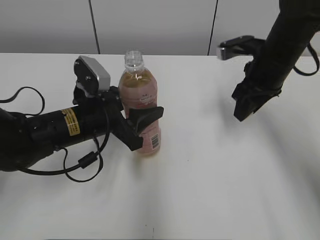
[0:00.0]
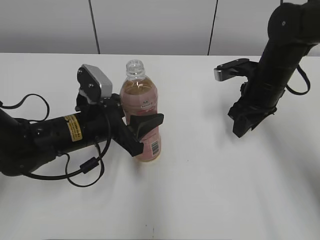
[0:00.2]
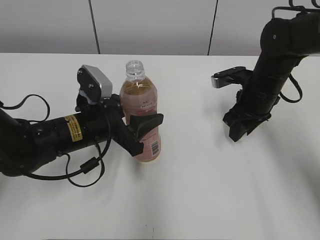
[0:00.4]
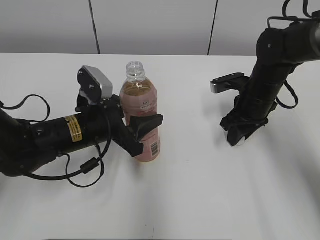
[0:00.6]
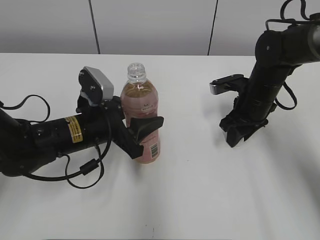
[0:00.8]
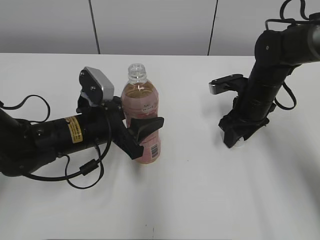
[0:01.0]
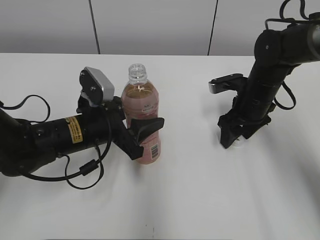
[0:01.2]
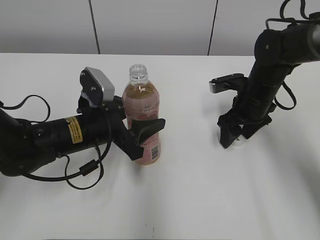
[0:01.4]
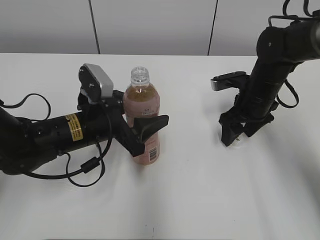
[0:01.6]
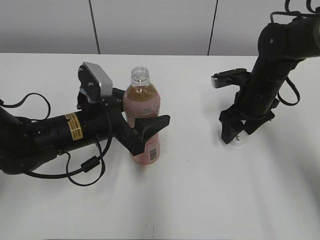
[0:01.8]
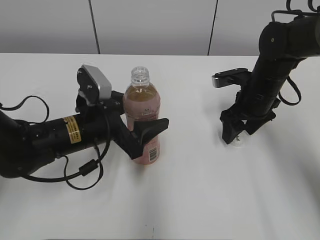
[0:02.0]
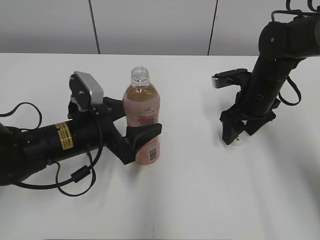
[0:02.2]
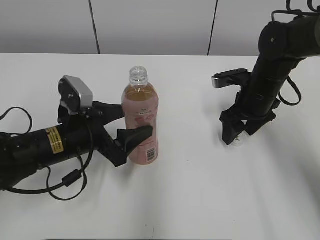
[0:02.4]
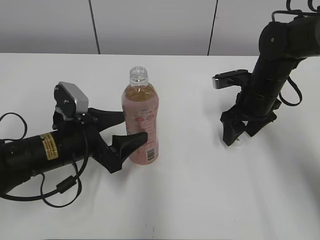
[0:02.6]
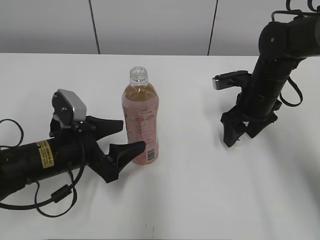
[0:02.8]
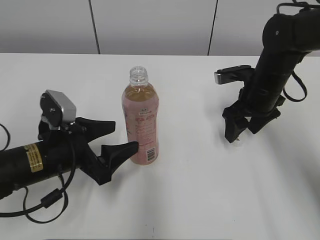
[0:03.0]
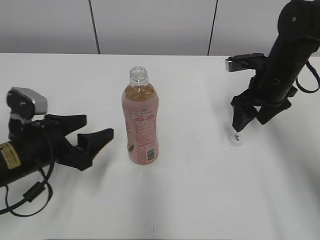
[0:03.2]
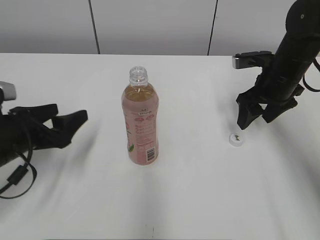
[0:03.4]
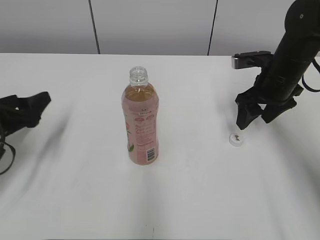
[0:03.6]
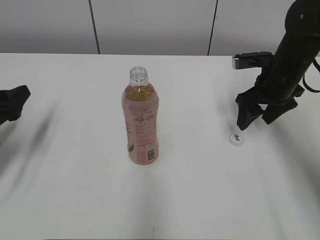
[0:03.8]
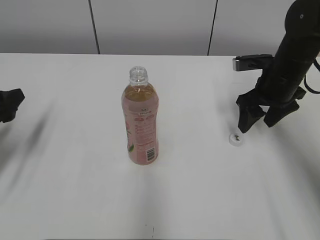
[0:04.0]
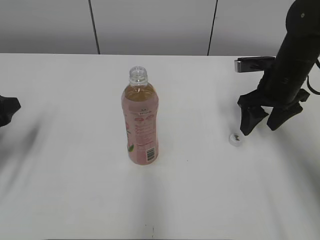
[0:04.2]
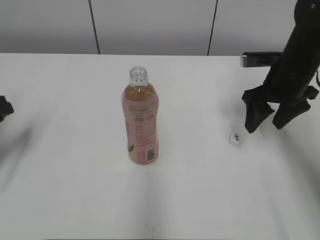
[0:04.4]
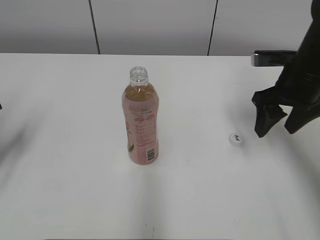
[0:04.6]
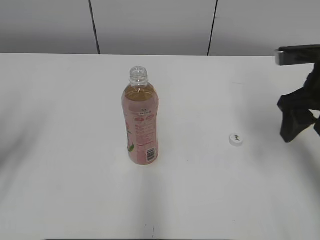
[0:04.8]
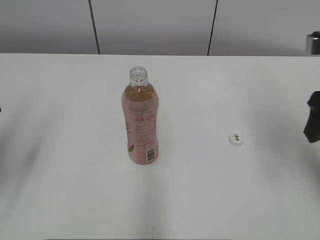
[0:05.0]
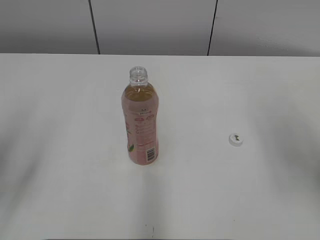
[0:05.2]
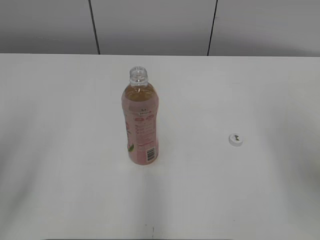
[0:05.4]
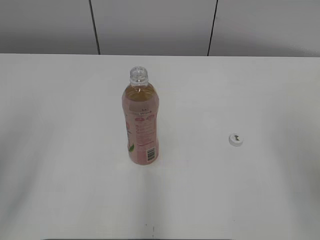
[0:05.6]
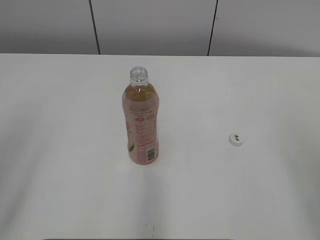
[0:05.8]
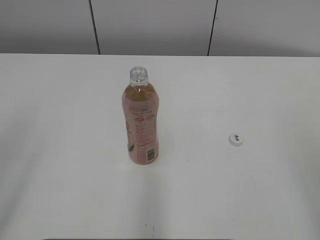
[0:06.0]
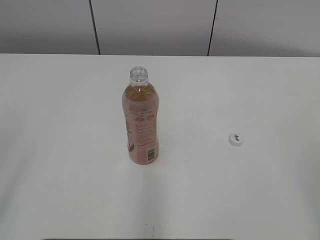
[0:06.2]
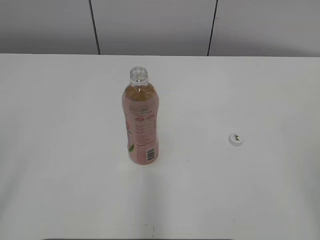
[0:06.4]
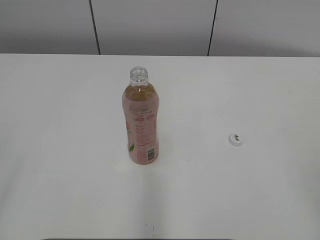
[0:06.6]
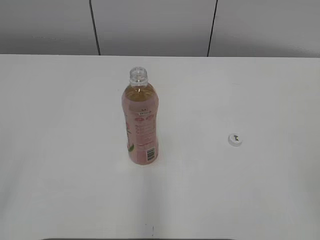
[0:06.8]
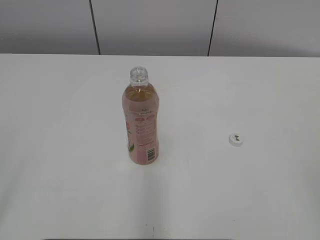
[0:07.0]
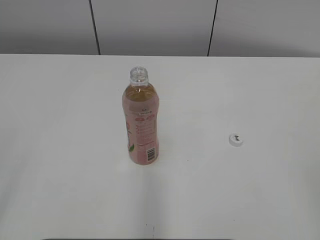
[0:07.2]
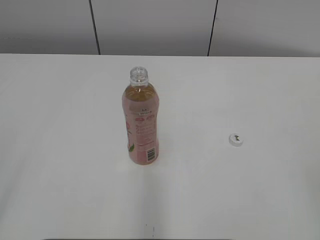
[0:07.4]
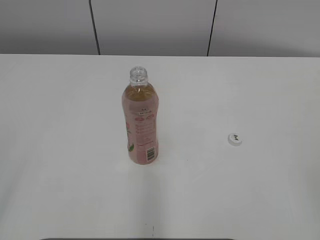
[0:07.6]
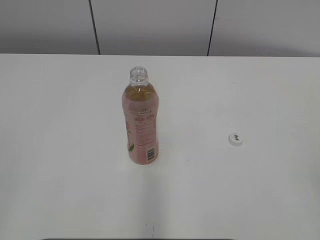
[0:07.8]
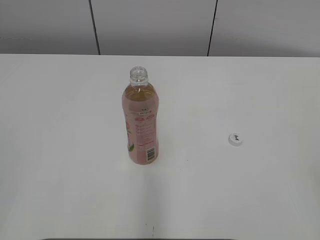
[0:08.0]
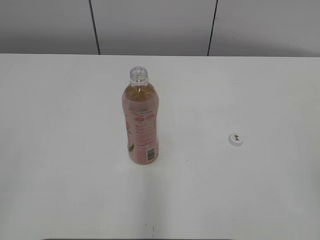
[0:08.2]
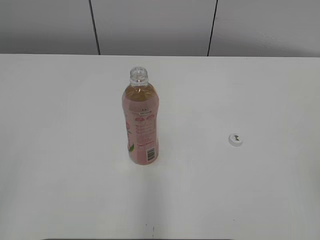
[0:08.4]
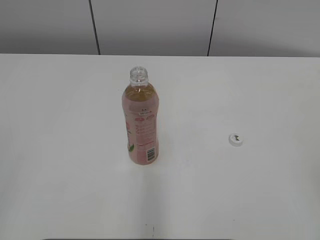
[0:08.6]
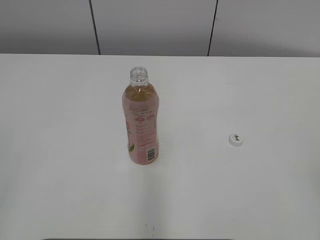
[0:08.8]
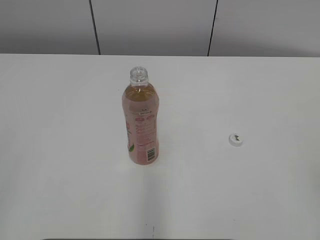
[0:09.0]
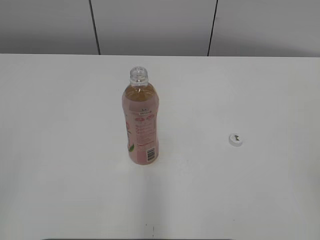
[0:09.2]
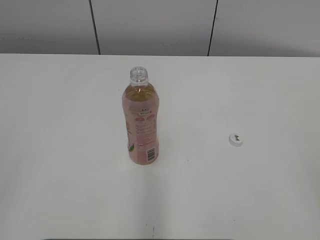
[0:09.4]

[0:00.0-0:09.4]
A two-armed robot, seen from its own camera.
Step, 0:01.0 to 0:01.6: Place the Peach Oolong Tea with the left hand.
0:00.0 to 0:01.6: The right gripper moves downward, about 10 cm, and opens its fingers.
0:01.6 to 0:03.2: The left gripper goes approximately 10 cm to the left and backward.
0:03.2 to 0:04.8: The left gripper travels to the left and upward by some 15 cm; the right gripper travels backward and upward by some 10 cm.
0:04.8 to 0:06.2: The right gripper travels backward by approximately 25 cm; the left gripper heads backward and upward, covering some 20 cm.
